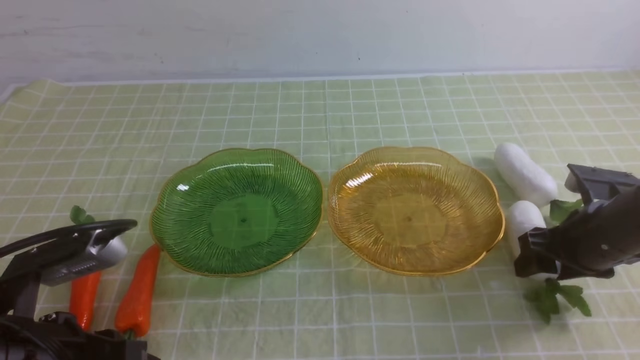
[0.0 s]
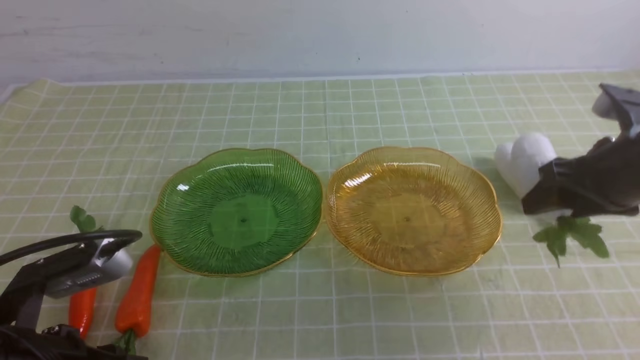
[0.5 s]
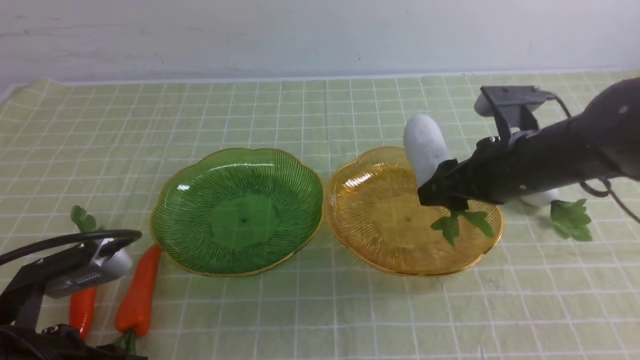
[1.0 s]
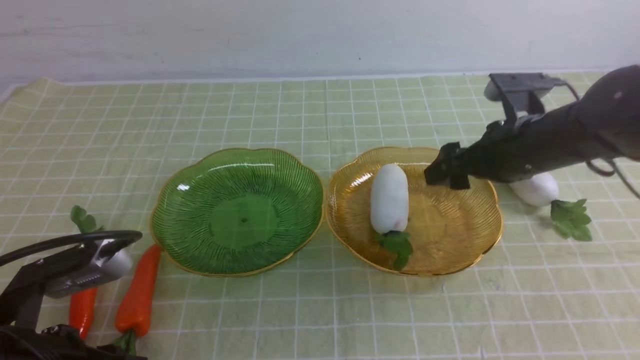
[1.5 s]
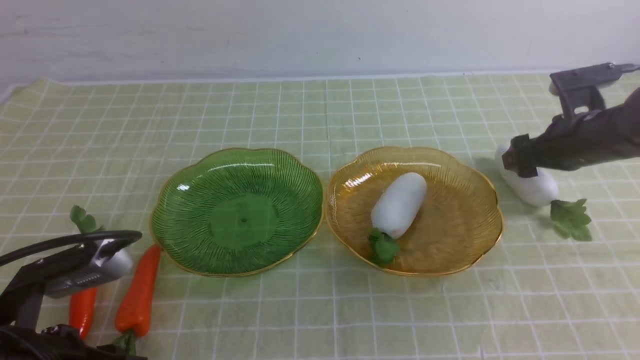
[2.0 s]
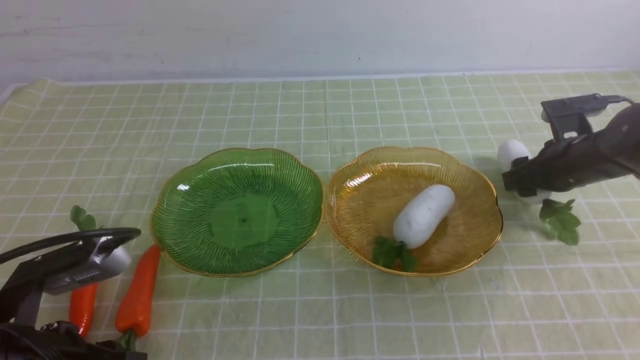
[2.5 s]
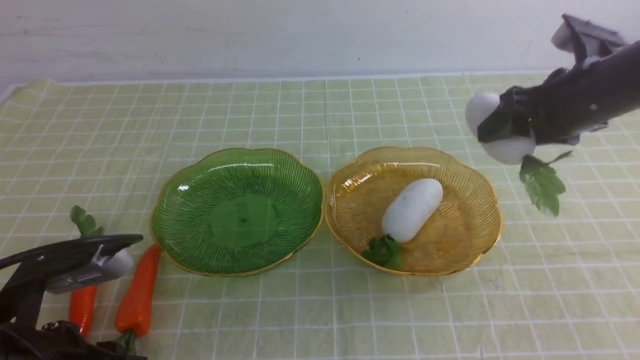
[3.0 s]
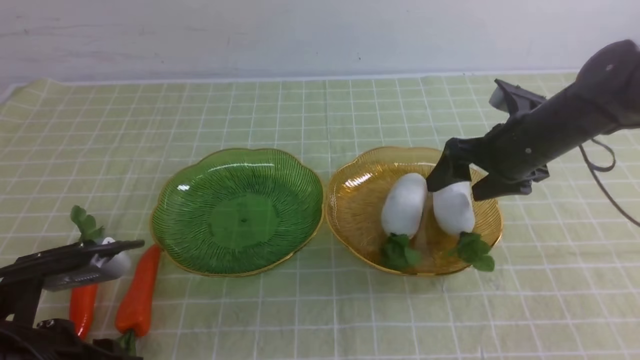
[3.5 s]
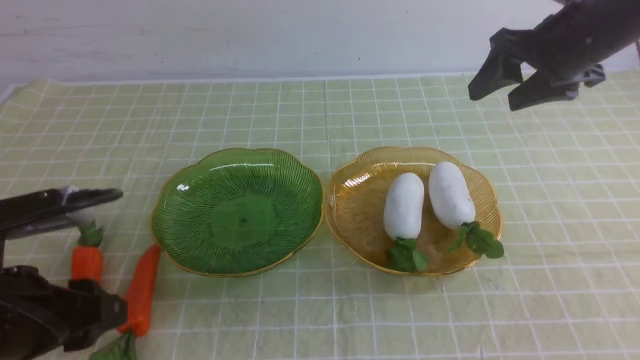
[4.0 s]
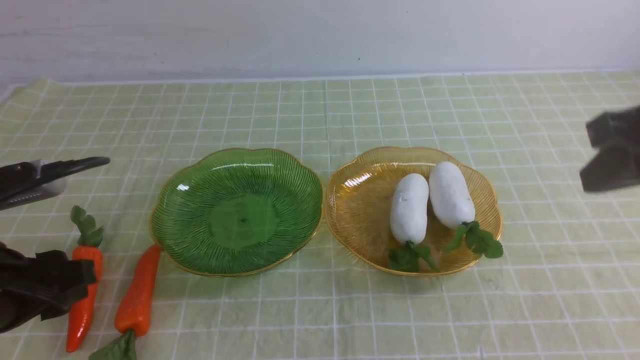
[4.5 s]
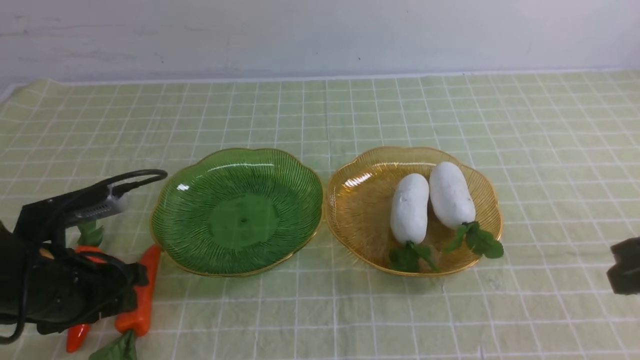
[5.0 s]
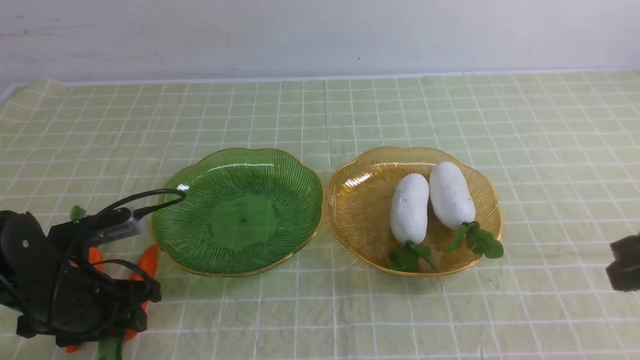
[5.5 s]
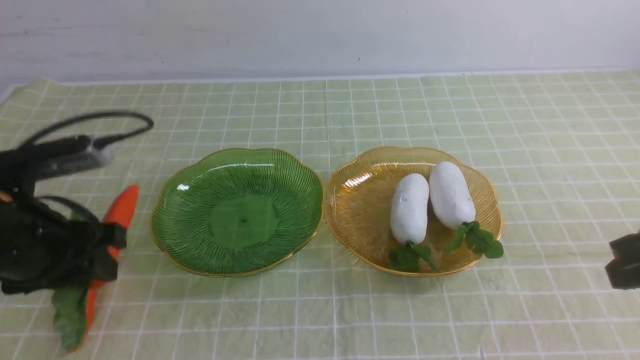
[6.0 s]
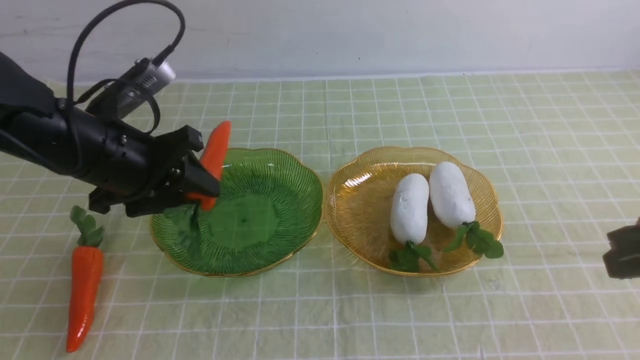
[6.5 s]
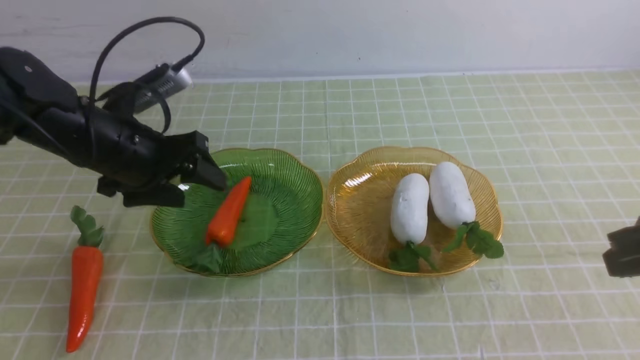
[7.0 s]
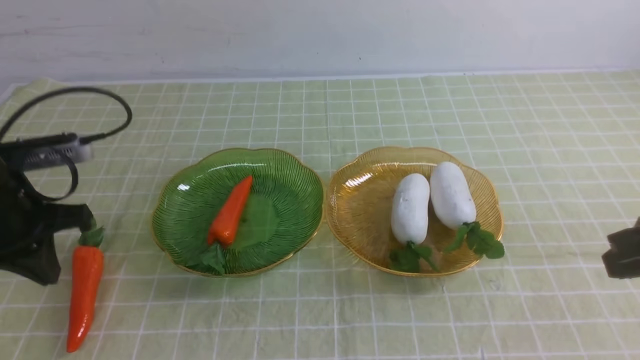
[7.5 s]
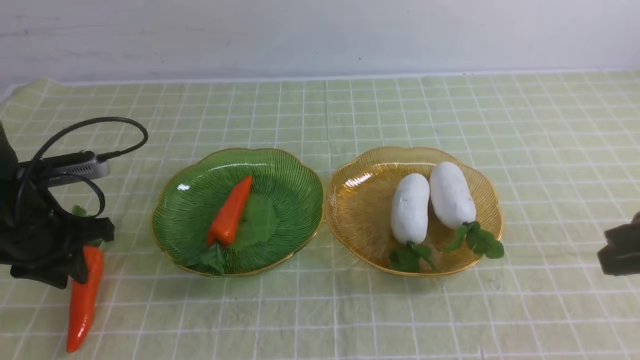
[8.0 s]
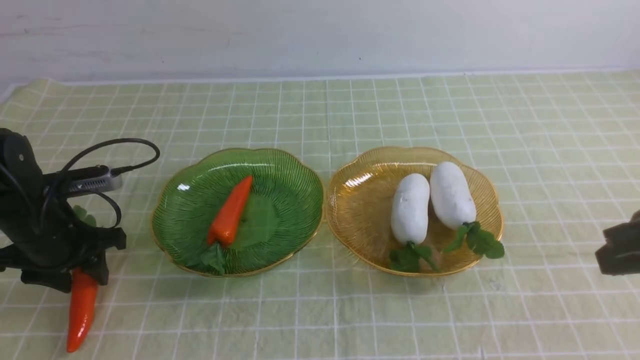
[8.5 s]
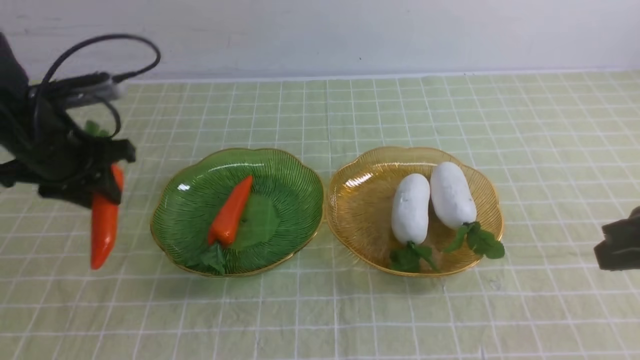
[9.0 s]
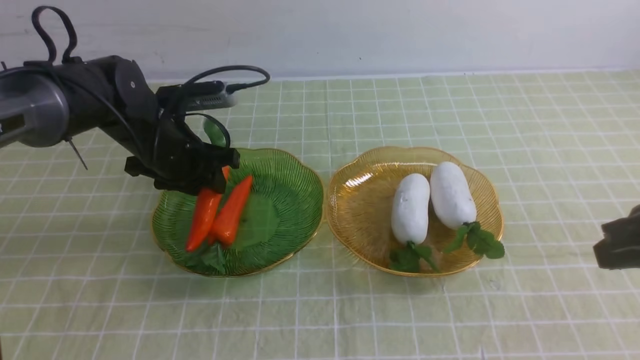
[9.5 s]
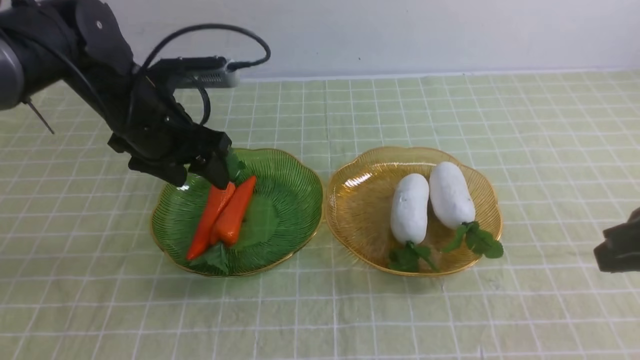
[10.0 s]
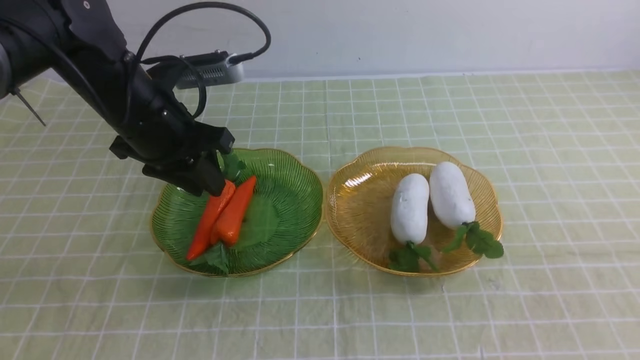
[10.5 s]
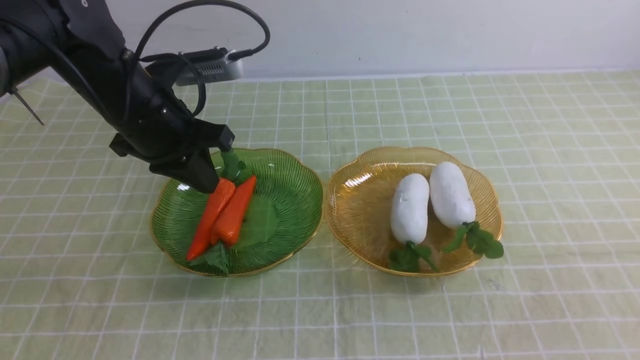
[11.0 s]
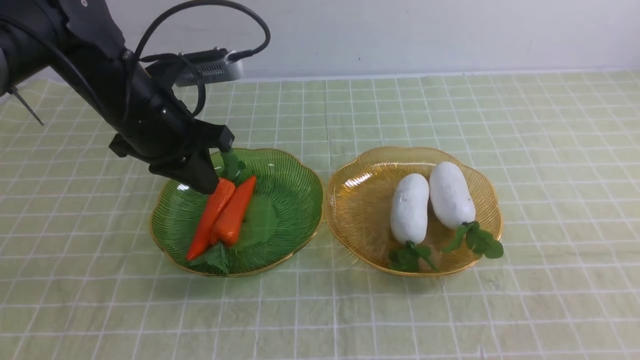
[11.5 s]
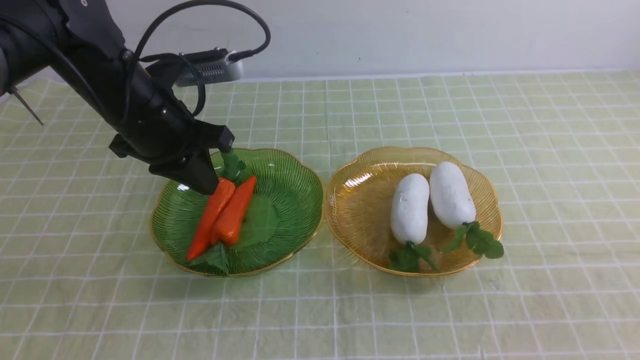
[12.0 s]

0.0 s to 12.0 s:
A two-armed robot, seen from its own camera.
Step, 0.0 to 4.0 s: use the right arm to grab a radish and put it into the right plate.
Step, 4.5 to 10.0 s: use the left arm to grab a carrot and put it into the left plate.
0.0 to 2.0 s: The right gripper moves forward, about 10 cm, and travels to the left and back again, roughly 10 cm each way.
2.0 to 4.0 s: The left gripper opens; the right gripper shifts approximately 15 cm upward.
4.0 to 6.0 s: The left gripper heads forward, covering approximately 10 cm, and goes downward and returns, roughly 10 cm each way. Meanwhile the right gripper moves backward, approximately 20 cm, and closes up.
6.0 to 8.0 s: The left gripper shifts about 10 cm forward, to the left and downward, and closes, then reopens.
8.0 to 10.0 s: The left gripper moves to the right, forward and upward, approximately 15 cm, and opens its fingers.
10.0 to 12.0 s: The right gripper heads backward, covering some 15 cm; the left gripper closes its fingers.

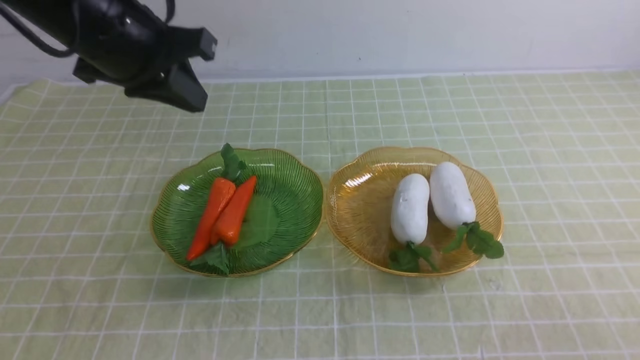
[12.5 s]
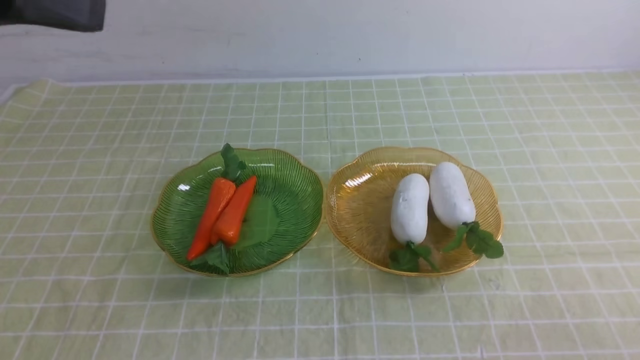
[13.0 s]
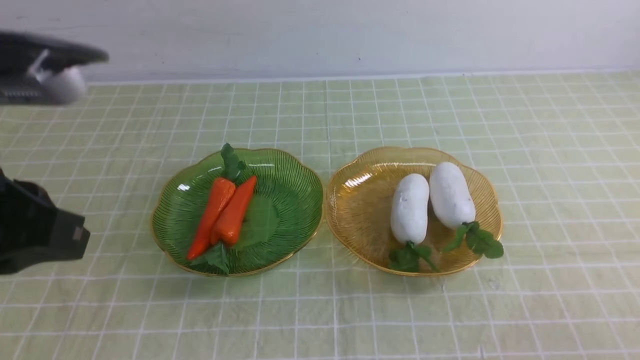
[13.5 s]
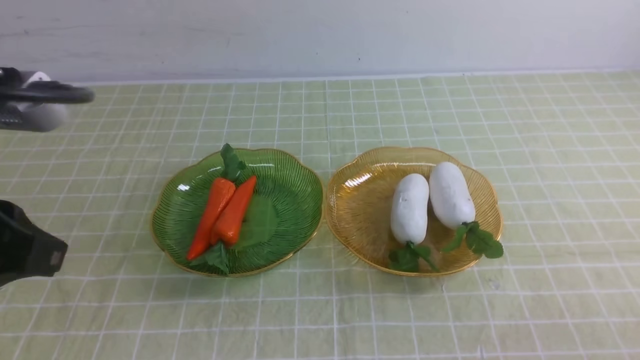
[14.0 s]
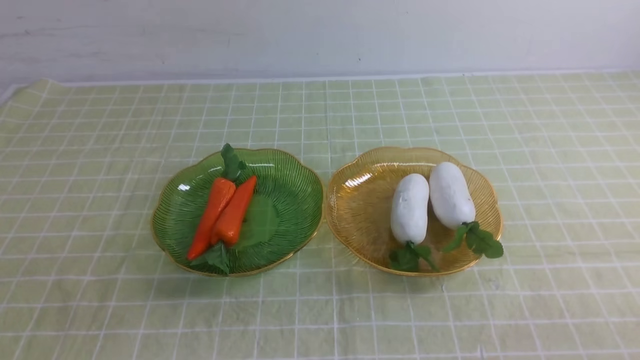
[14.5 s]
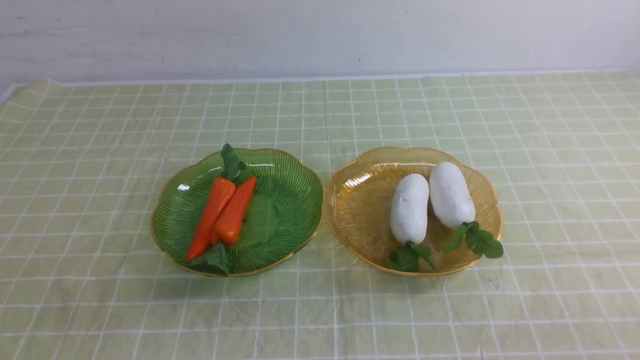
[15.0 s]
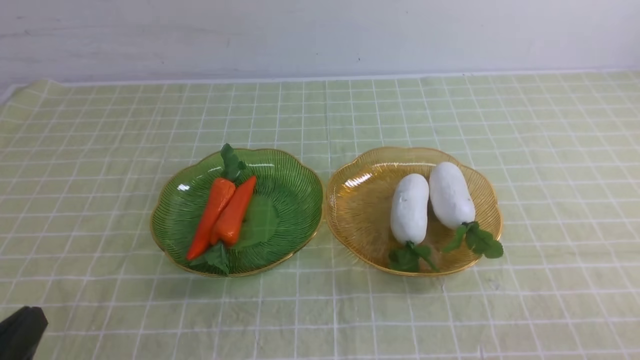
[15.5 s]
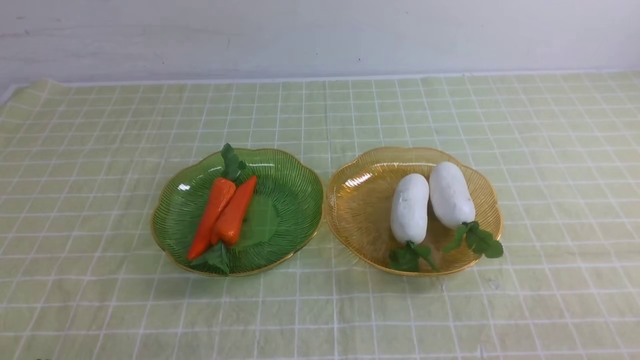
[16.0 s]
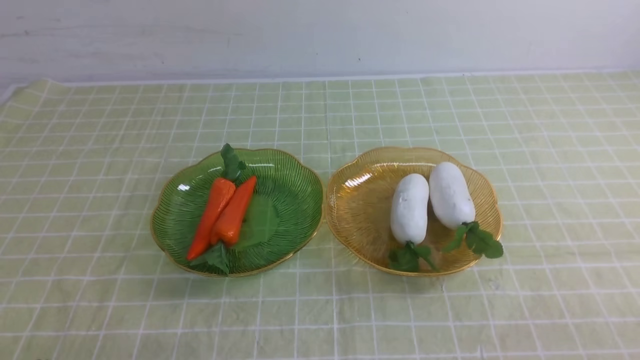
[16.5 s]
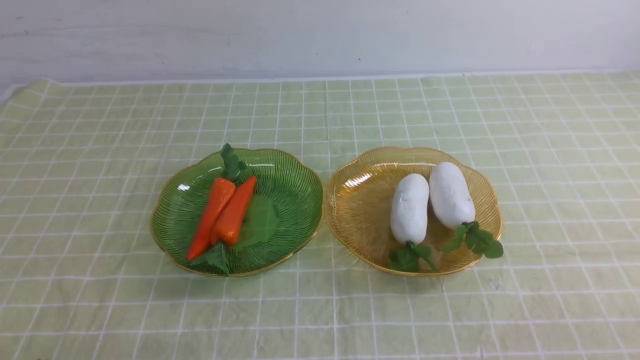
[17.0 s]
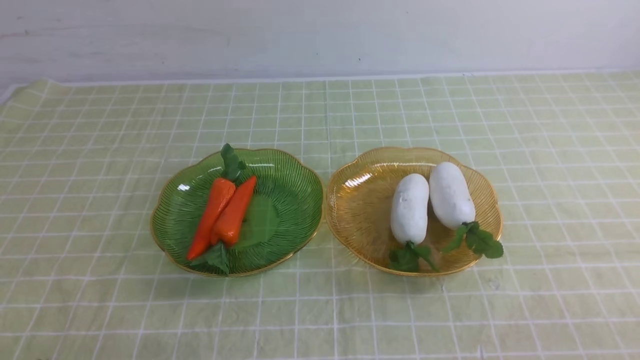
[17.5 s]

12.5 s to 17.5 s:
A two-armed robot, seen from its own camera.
12.5 to 15.0 s: The left gripper shifts about 30 cm backward and downward.

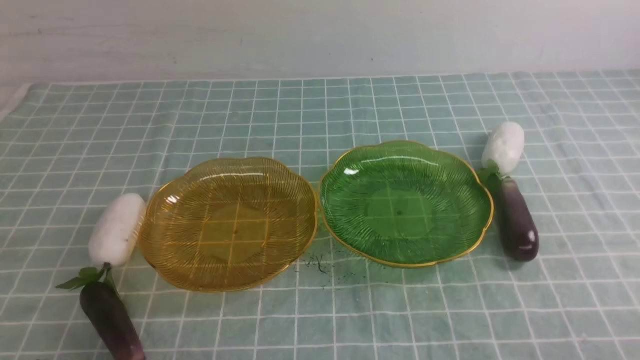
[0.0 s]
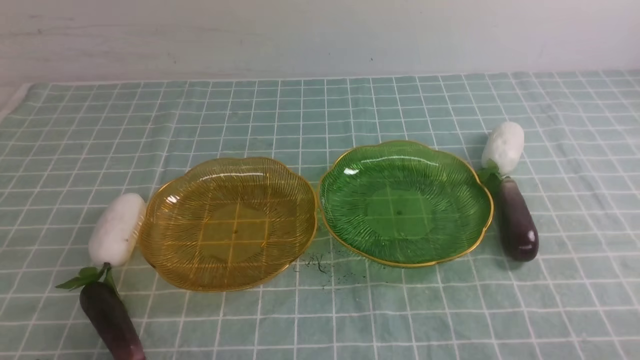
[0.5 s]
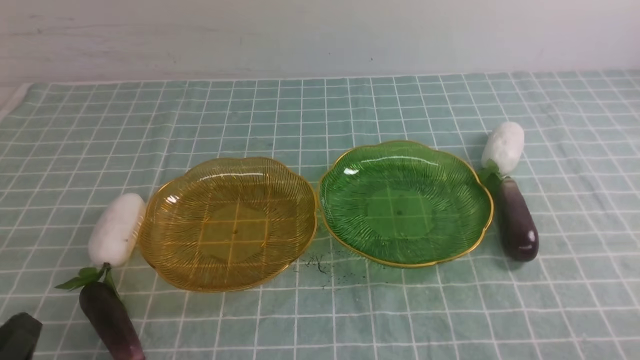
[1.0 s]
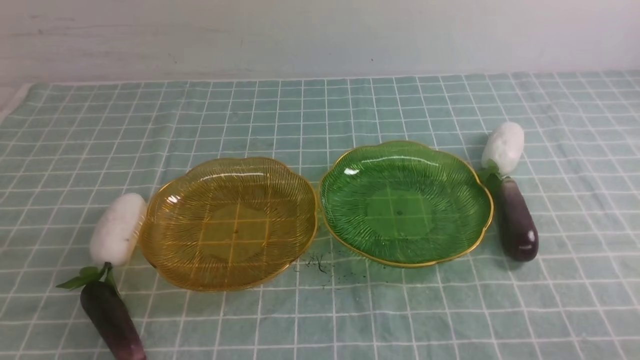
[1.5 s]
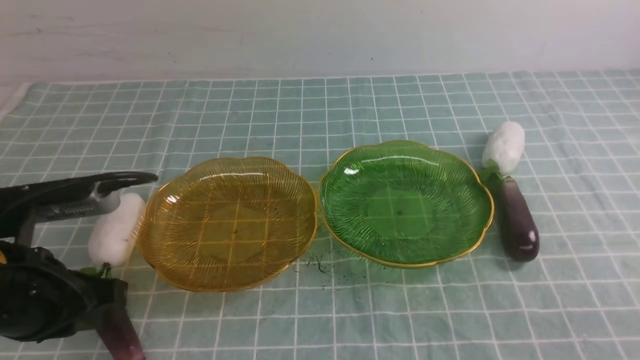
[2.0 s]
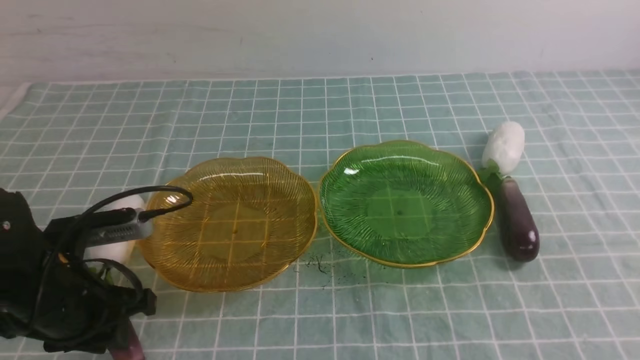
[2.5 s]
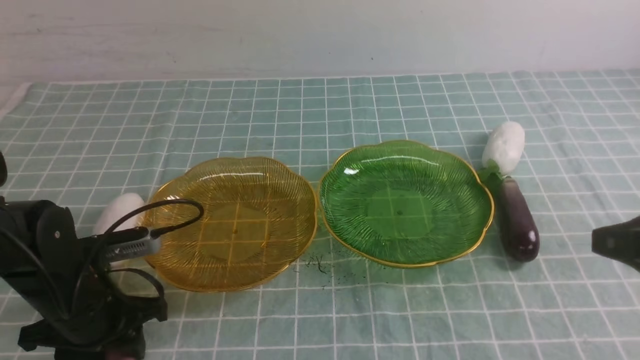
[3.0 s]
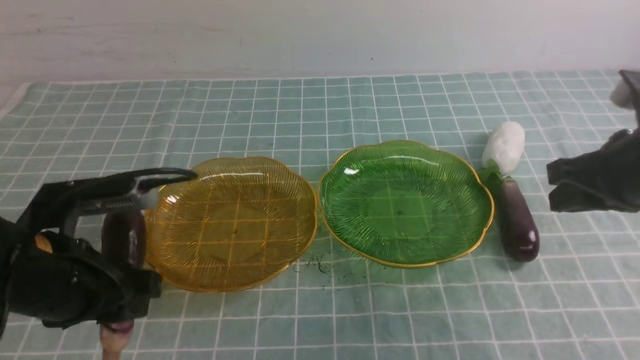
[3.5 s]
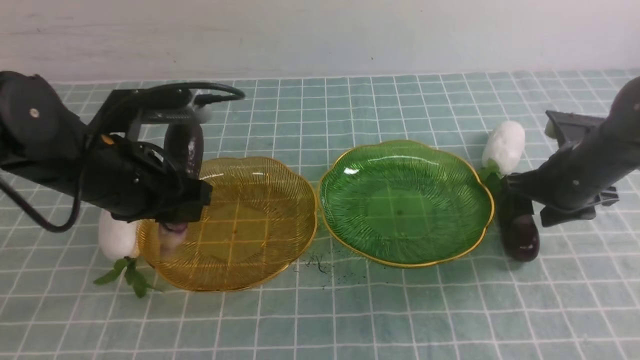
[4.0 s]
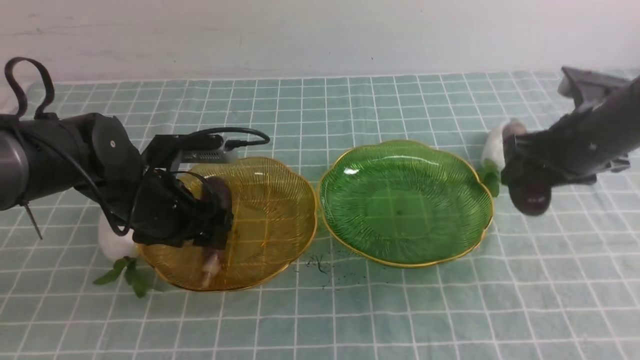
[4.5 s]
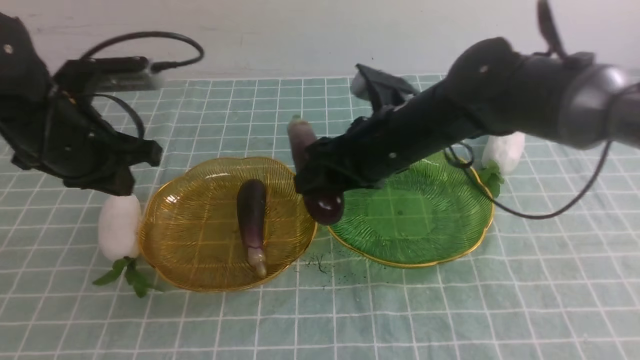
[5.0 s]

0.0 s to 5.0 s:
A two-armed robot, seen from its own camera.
Step, 0.0 to 4.5 s: use the left arm to grab an eggplant and put it into the left plate.
0.0 to 2.5 s: The left gripper heads forward, covering some 20 cm, and opens.
2.5 to 5.0 s: The left gripper goes up and down, some 10 cm each way, reversing 2 times, while the right gripper shifts about 30 cm forward and to the left, and opens its fingers.
